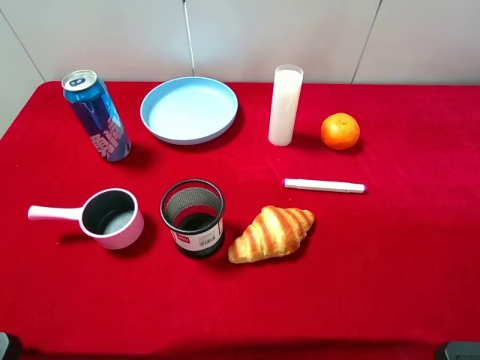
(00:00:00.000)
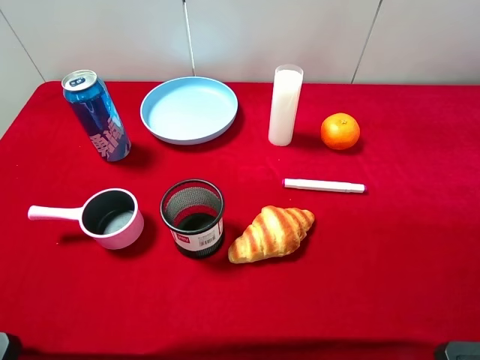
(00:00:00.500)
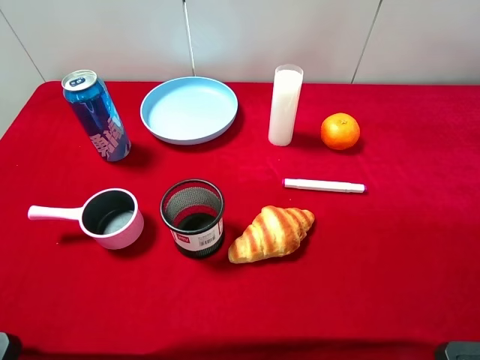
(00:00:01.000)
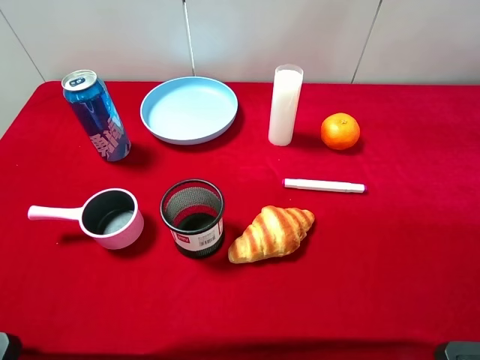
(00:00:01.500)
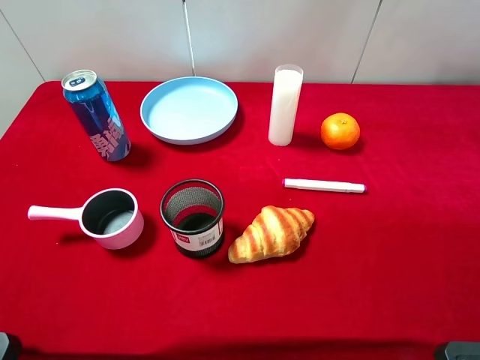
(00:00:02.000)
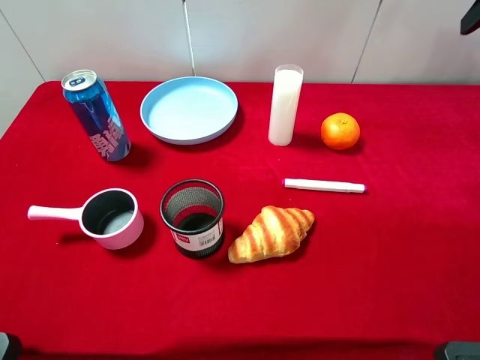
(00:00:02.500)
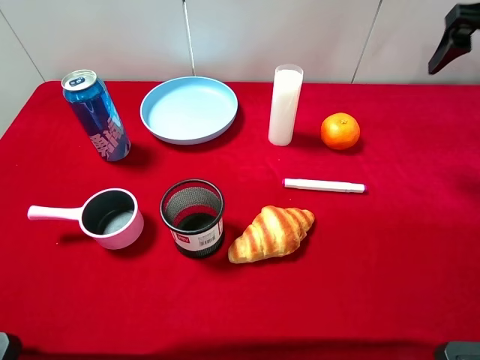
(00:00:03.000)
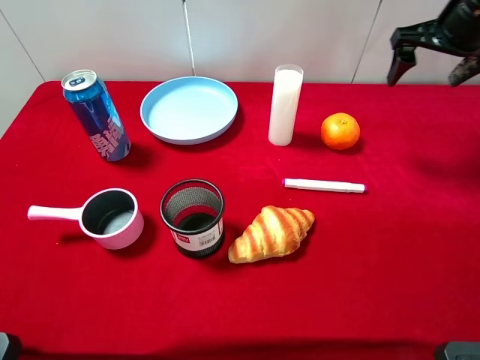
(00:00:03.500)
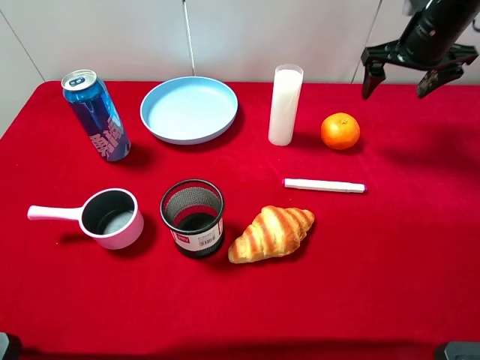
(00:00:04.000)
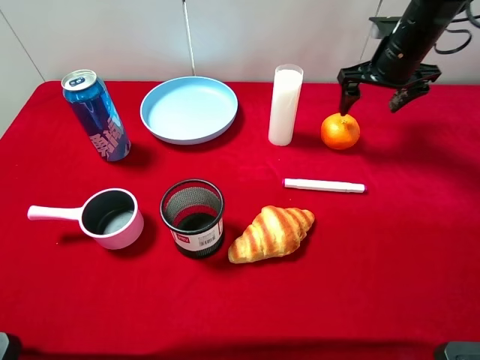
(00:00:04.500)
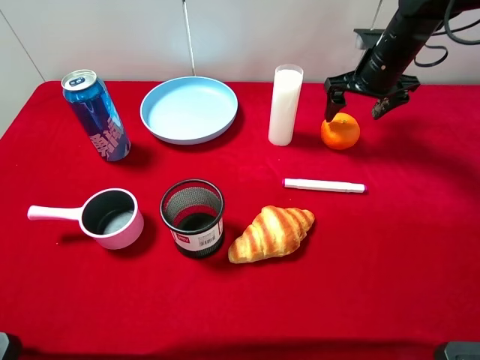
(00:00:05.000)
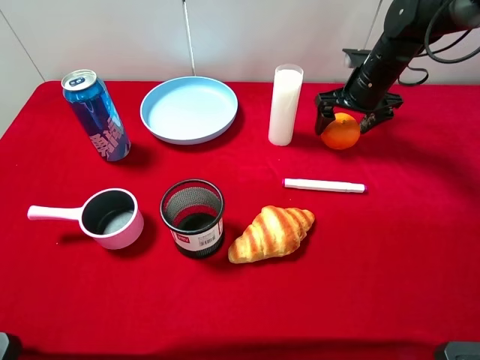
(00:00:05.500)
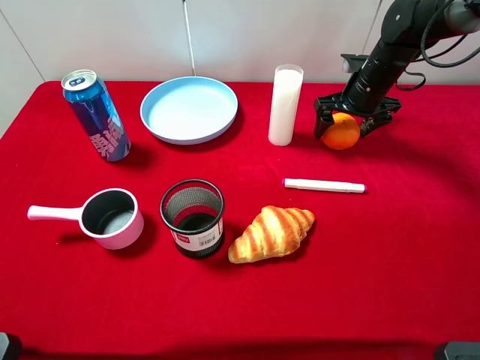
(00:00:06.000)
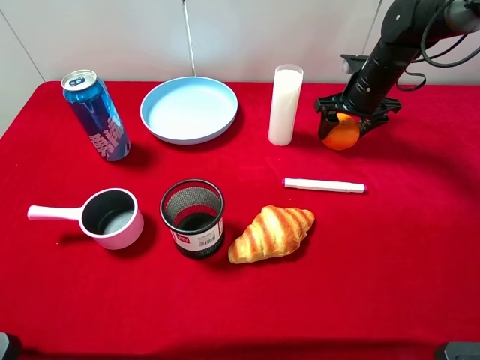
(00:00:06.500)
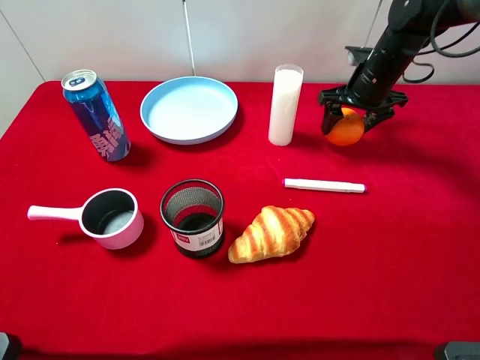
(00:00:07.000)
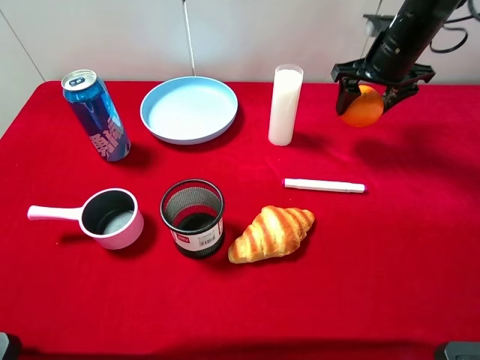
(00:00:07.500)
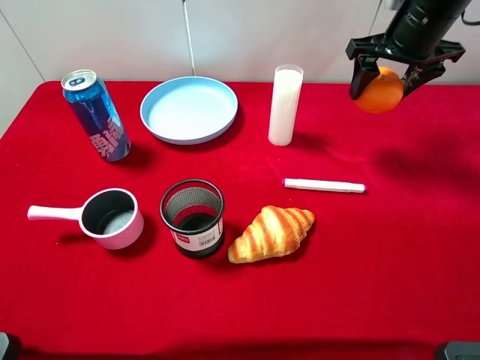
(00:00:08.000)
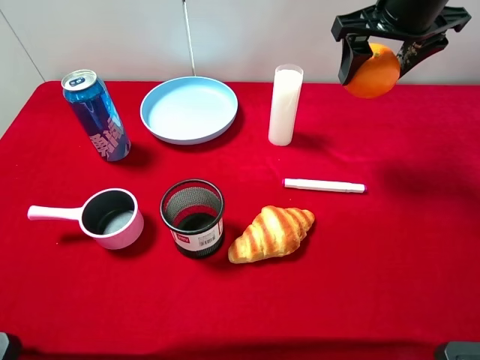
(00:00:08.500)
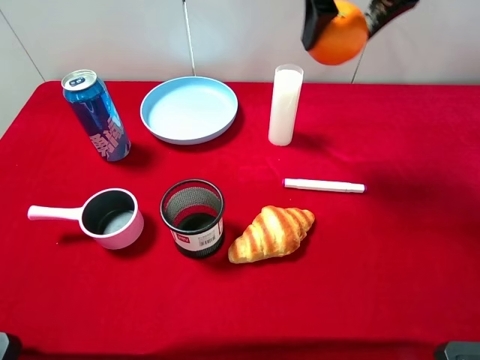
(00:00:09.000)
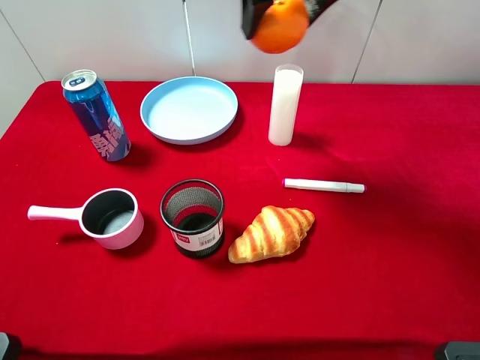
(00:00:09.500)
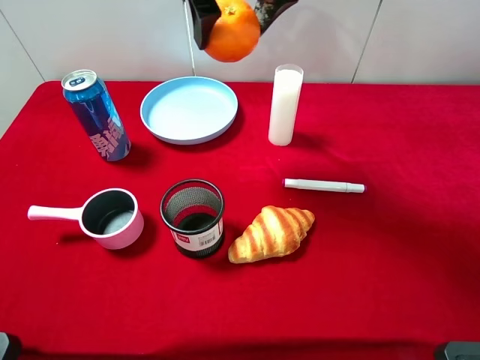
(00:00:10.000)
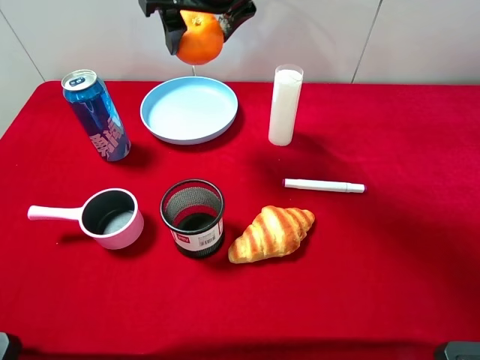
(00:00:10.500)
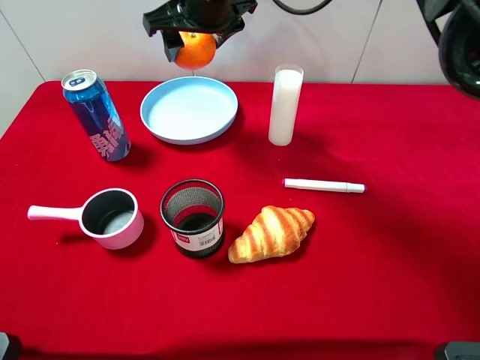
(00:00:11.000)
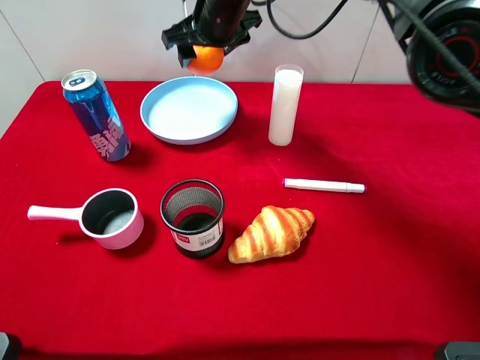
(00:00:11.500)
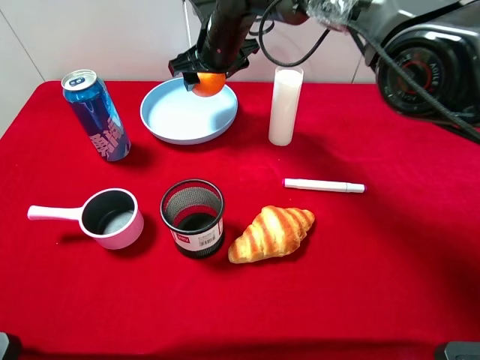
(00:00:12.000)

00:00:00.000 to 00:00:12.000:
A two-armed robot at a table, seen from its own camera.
Task of the whole recording: pick up an item with a gripper and place it in a random container on the desktop.
00:00:02.000 to 00:00:04.000: The right gripper goes some 25 cm forward and downward.
00:00:04.000 to 00:00:06.000: The right gripper shifts approximately 10 cm downward.
00:00:06.000 to 00:00:08.000: The right gripper shifts roughly 15 cm upward, and closes up.
00:00:08.000 to 00:00:10.000: The right gripper moves to the left and upward, some 25 cm.
00:00:10.000 to 00:00:12.000: The right gripper heads downward and forward, covering some 20 cm.

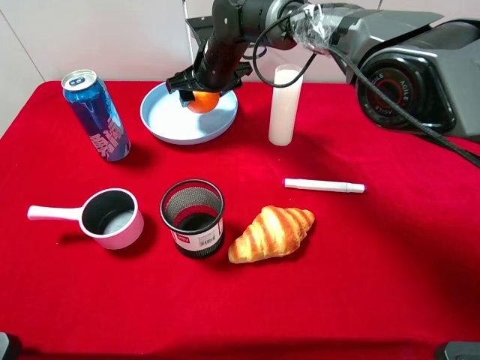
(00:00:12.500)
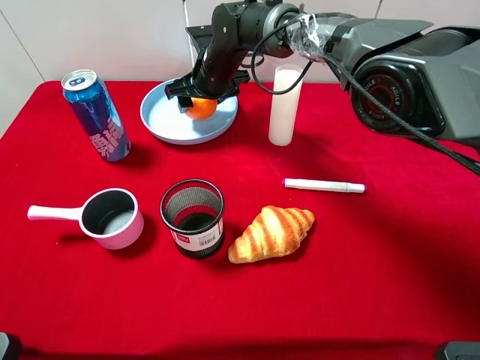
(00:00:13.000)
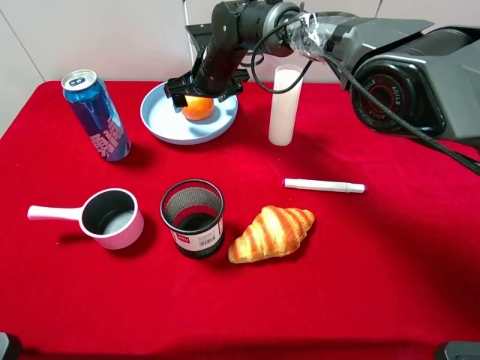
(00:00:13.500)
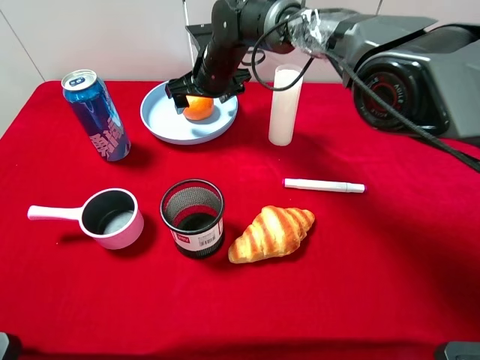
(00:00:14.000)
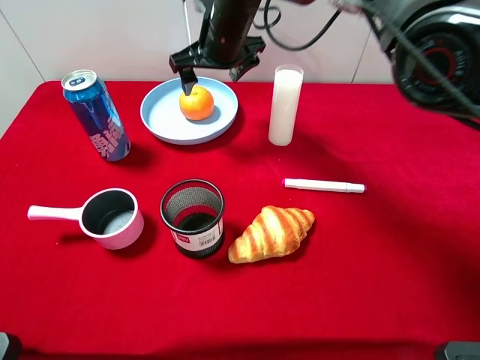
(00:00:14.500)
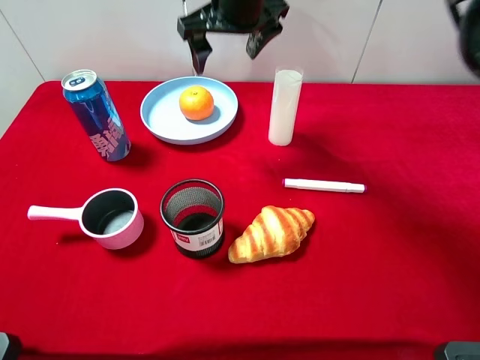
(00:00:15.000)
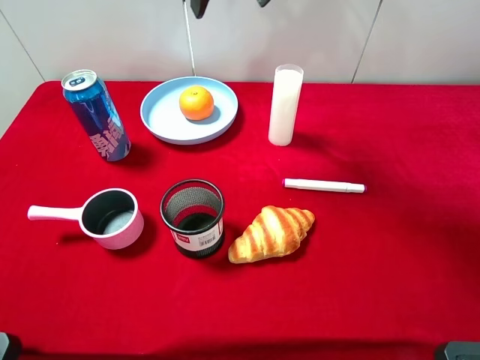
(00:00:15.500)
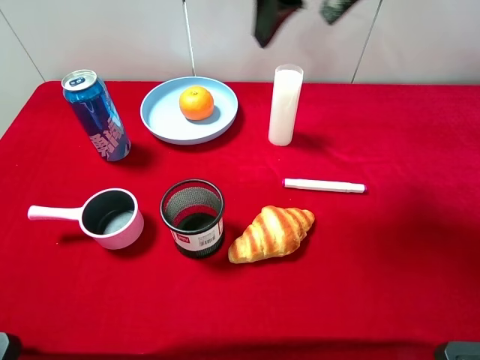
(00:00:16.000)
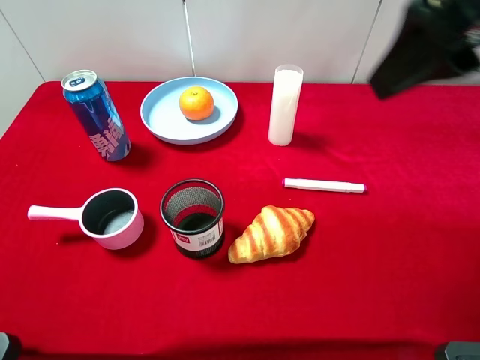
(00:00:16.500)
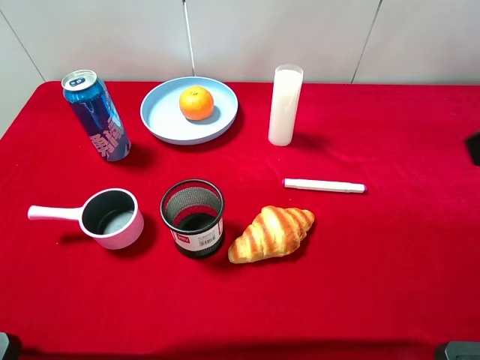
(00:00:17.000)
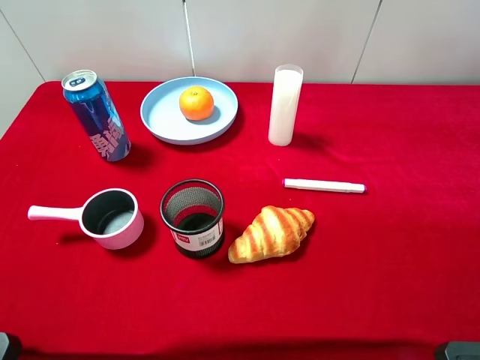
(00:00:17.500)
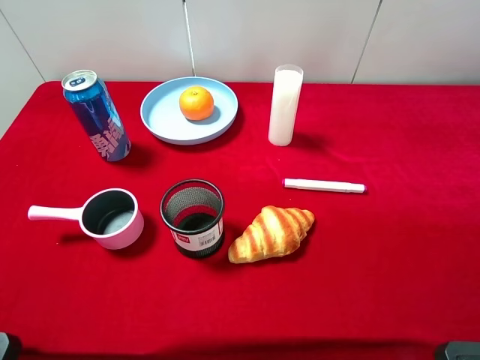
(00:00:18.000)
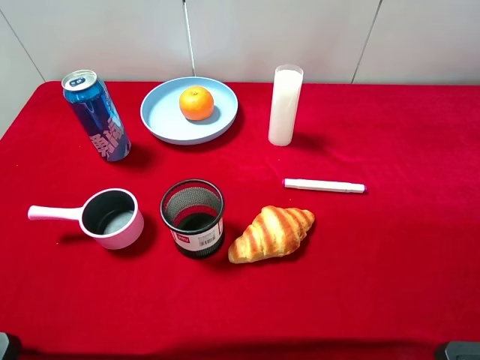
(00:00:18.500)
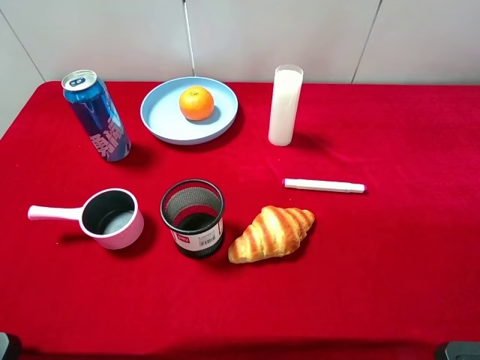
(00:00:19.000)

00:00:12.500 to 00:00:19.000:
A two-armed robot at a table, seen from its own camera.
Task of the whole recording: pick up an item with a gripper and place it in a random container on the desktop.
00:00:12.500 to 00:00:14.500: The right gripper moves upward, approximately 5 cm, and opens its fingers.
00:00:14.500 to 00:00:17.000: The right gripper goes approximately 40 cm backward, to the right and upward.
